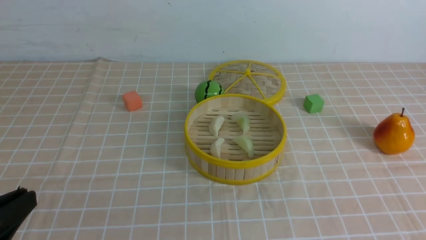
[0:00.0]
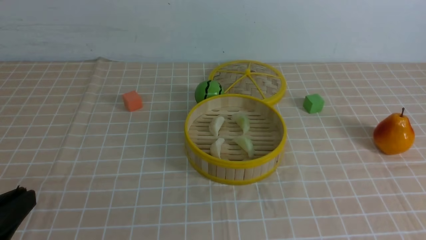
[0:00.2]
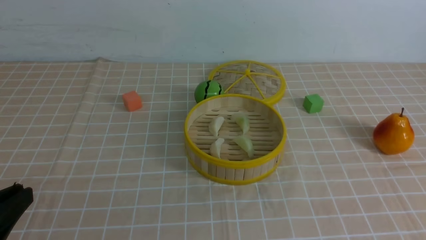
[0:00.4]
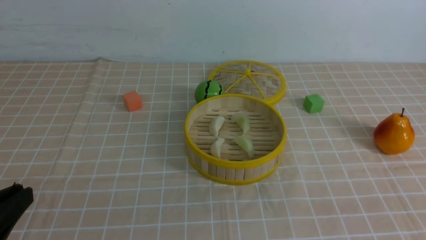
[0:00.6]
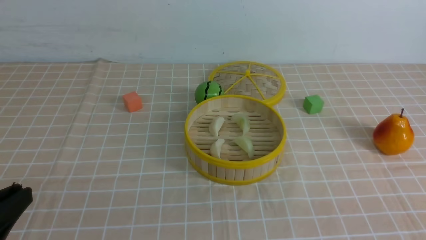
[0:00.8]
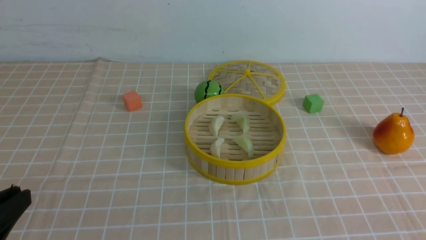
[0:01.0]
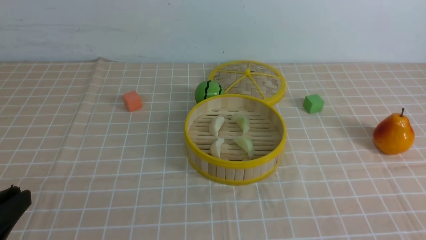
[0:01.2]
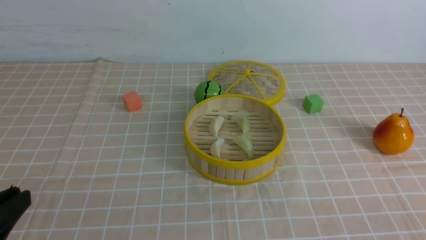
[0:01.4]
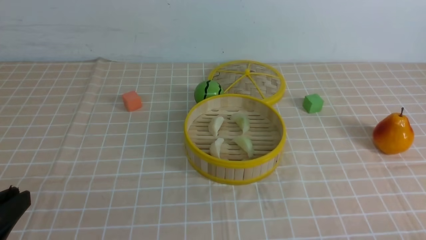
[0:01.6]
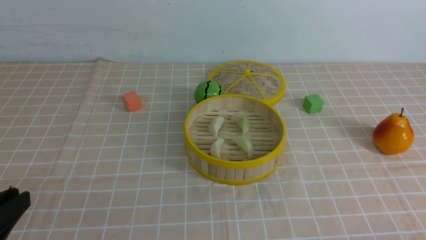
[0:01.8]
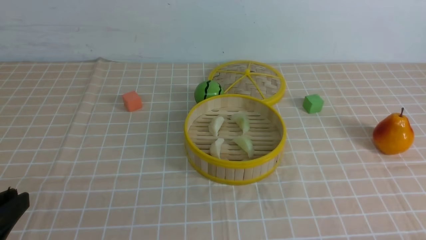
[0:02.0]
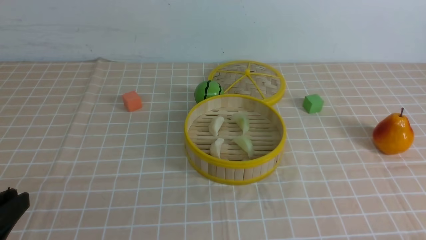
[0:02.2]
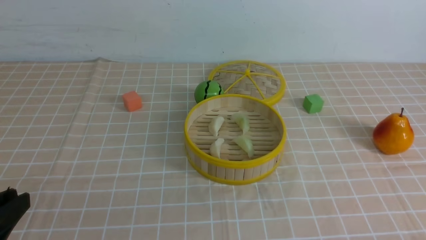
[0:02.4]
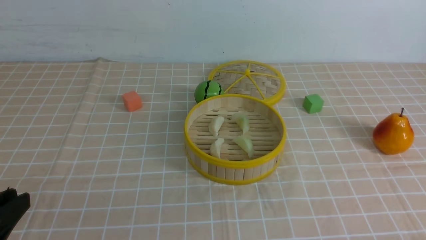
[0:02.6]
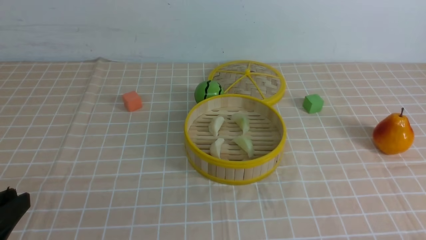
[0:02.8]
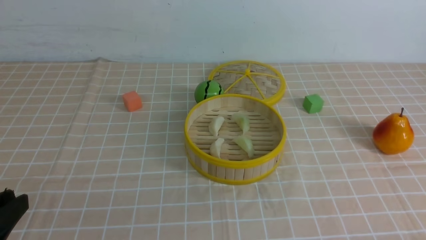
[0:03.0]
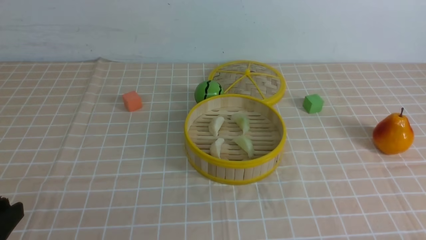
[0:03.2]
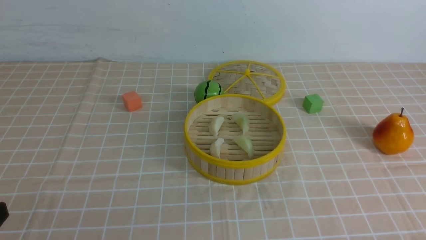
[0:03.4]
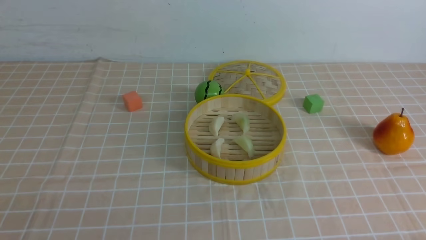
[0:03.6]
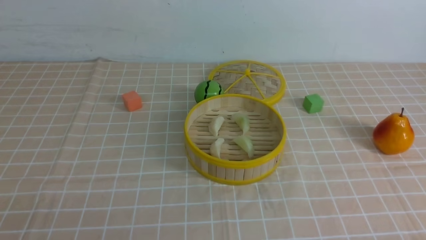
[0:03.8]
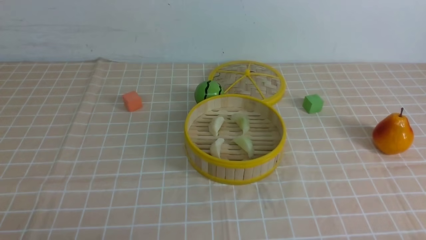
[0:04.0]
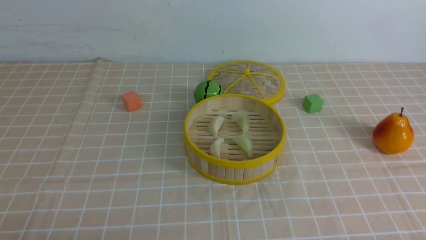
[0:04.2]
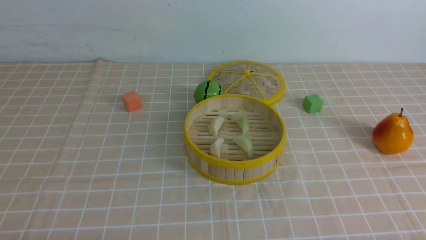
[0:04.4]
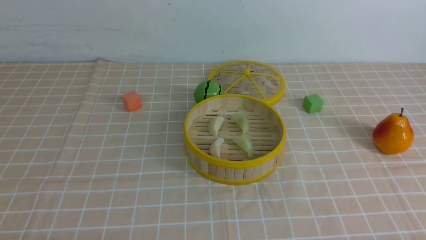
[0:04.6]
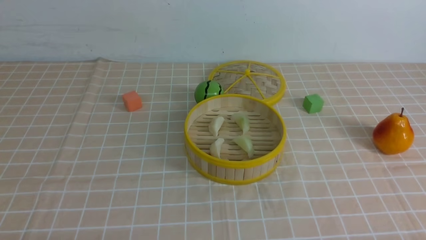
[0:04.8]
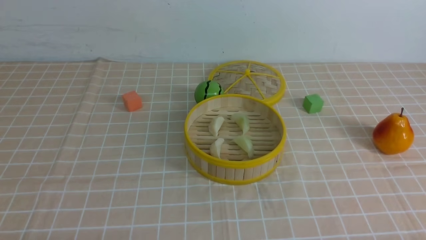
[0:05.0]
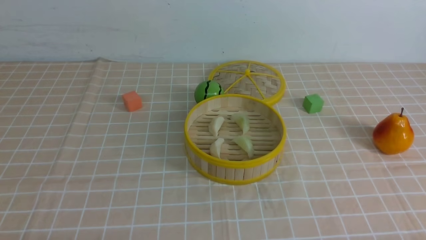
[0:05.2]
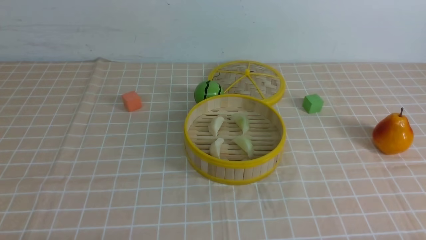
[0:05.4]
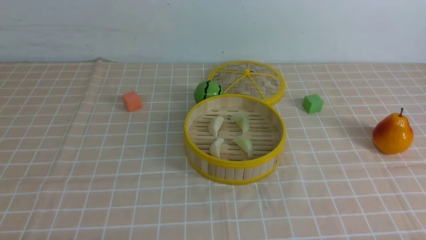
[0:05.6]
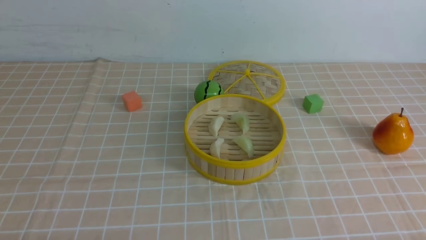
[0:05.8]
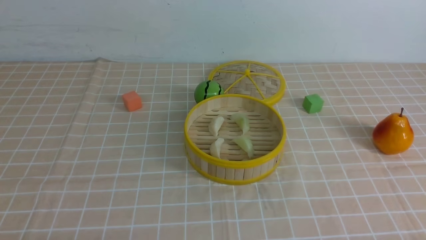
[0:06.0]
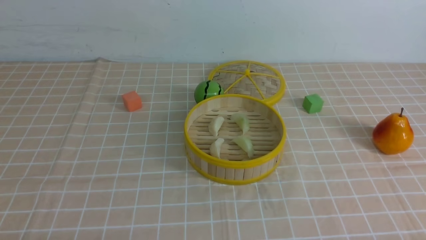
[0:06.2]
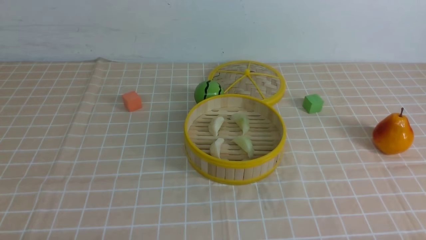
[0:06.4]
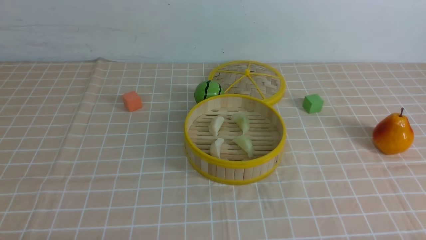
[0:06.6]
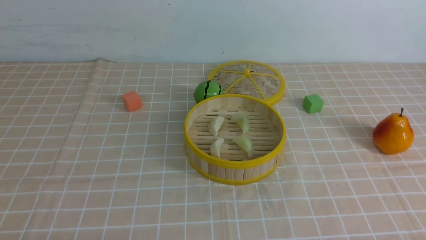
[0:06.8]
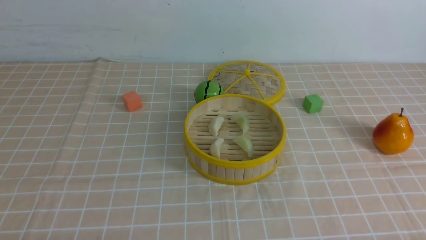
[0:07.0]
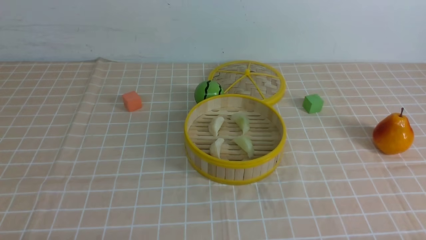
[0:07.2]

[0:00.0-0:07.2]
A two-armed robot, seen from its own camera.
Task of the whole recording: put the dumplings into the steamer on the table with the brown tablecloth.
0:02.8 to 0:04.4: The left gripper is displaced downward by approximately 10 cm.
0:05.8 to 0:07.2: Both grippers stay put.
